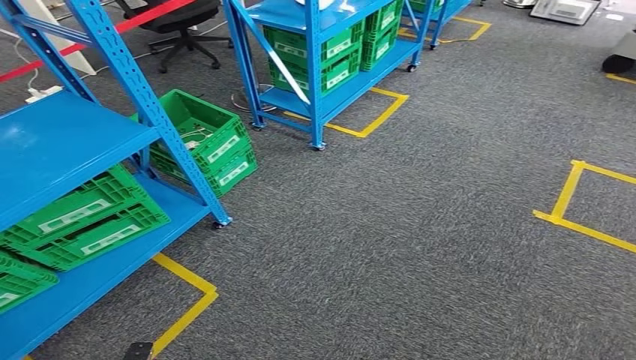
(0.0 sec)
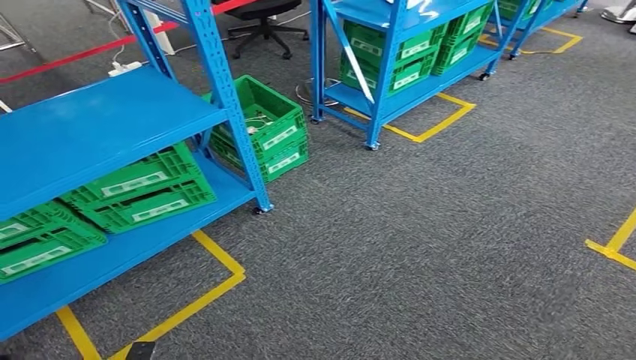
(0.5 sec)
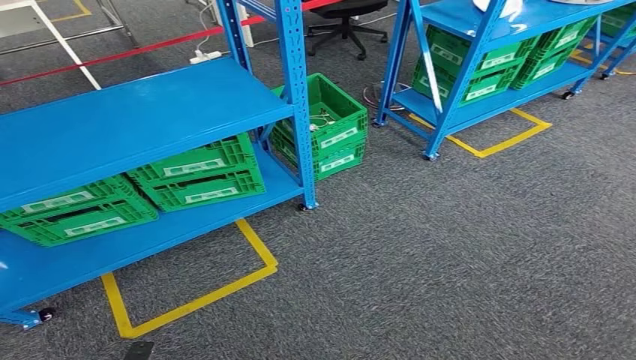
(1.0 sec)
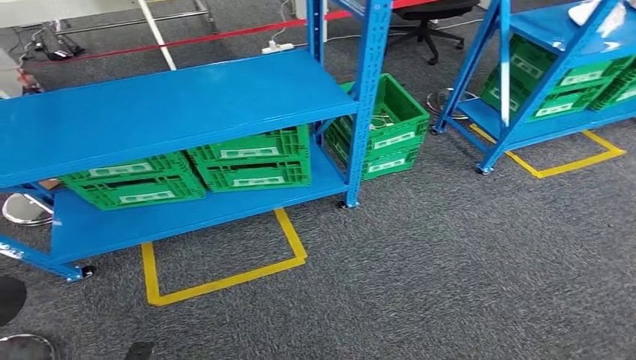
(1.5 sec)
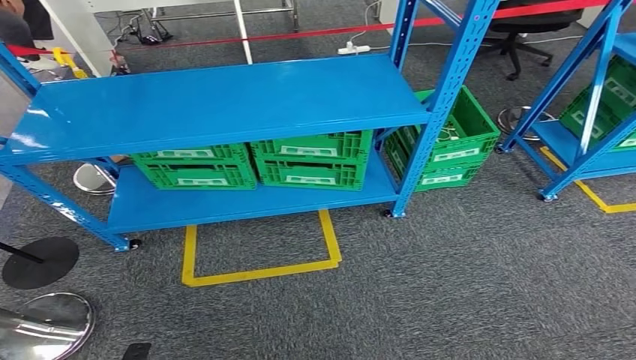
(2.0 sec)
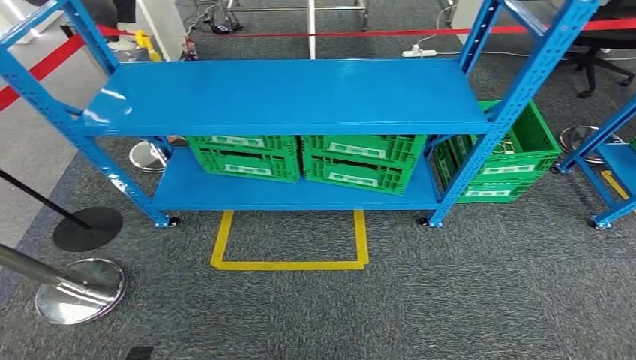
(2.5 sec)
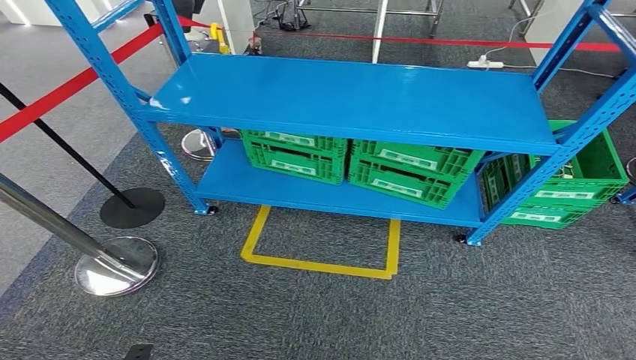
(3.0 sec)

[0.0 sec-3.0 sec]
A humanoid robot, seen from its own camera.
Step, 0.0 sec to 3.0 sec: Return to the initial position at the workbench.
